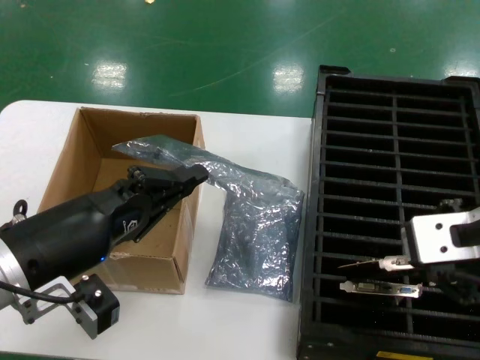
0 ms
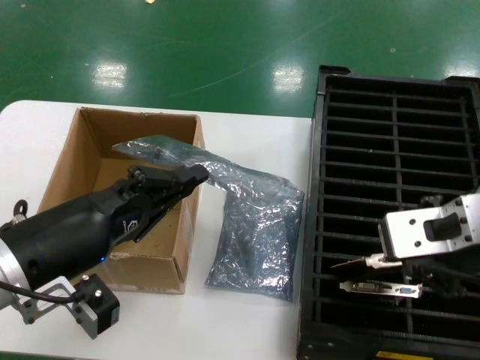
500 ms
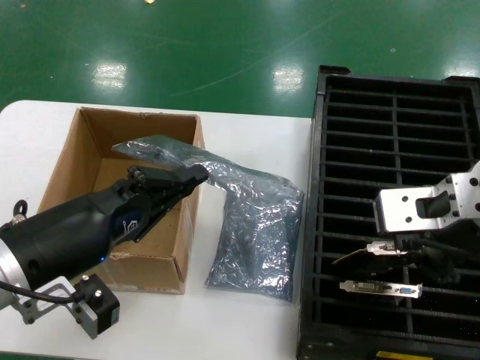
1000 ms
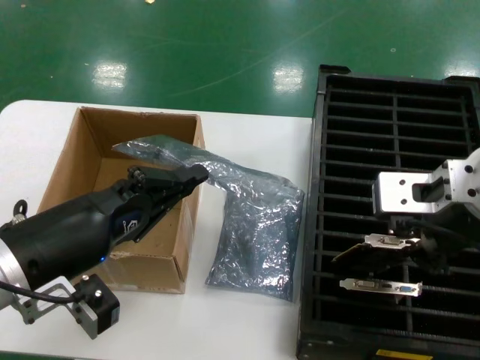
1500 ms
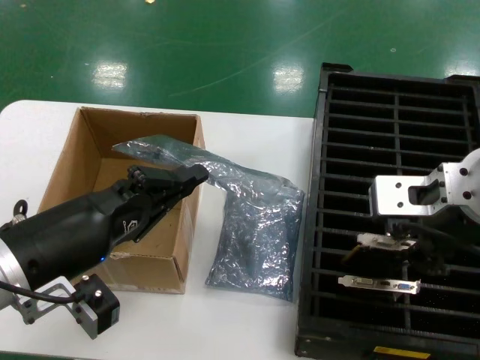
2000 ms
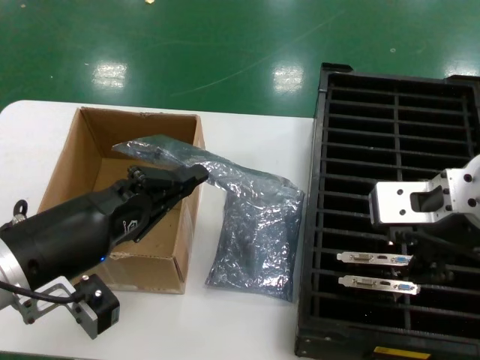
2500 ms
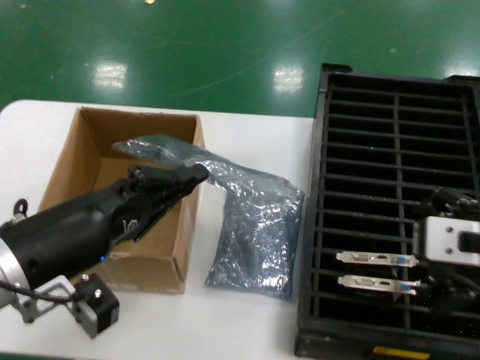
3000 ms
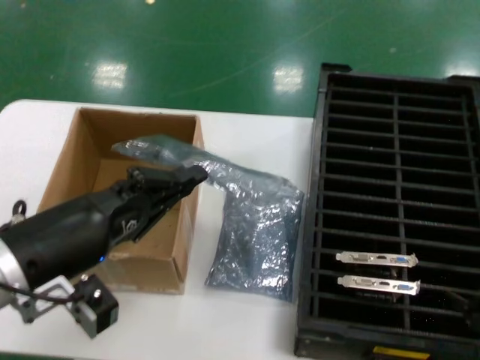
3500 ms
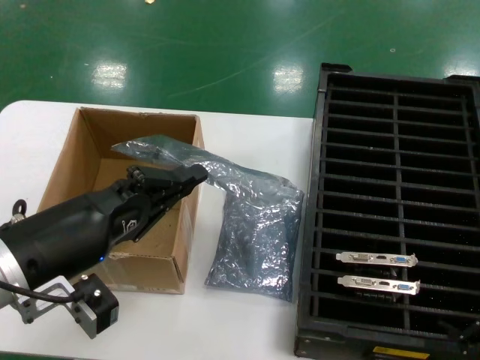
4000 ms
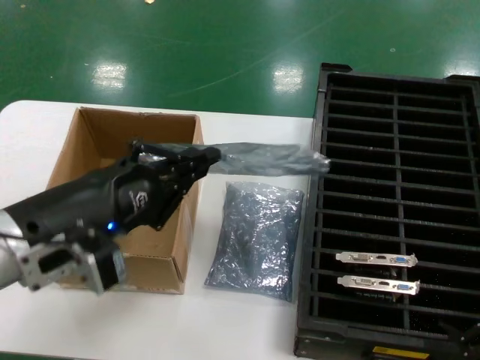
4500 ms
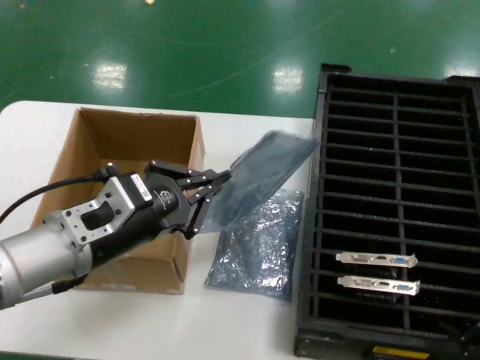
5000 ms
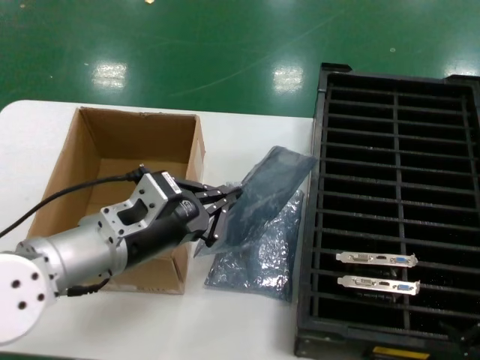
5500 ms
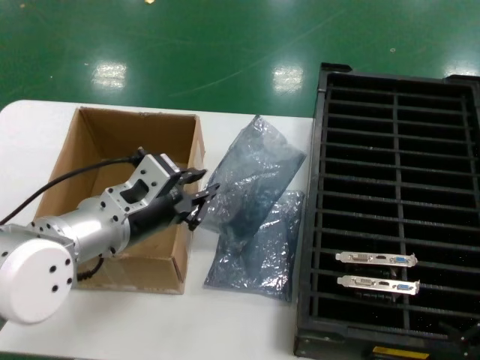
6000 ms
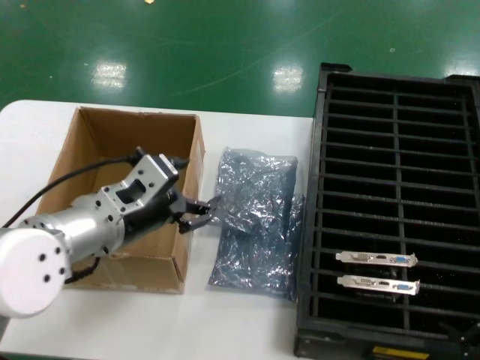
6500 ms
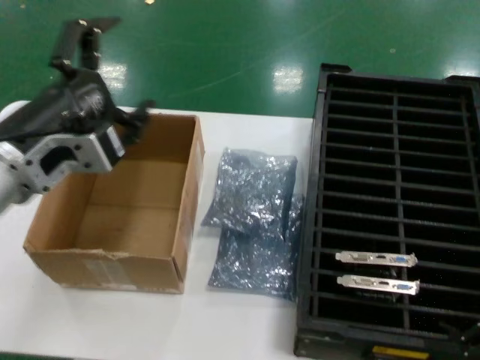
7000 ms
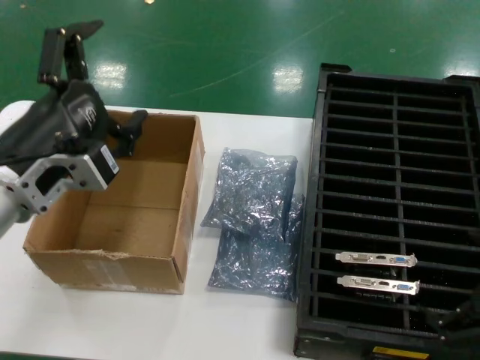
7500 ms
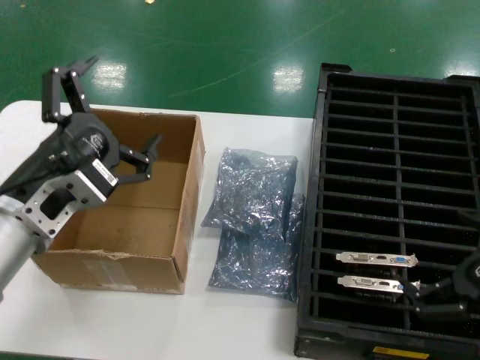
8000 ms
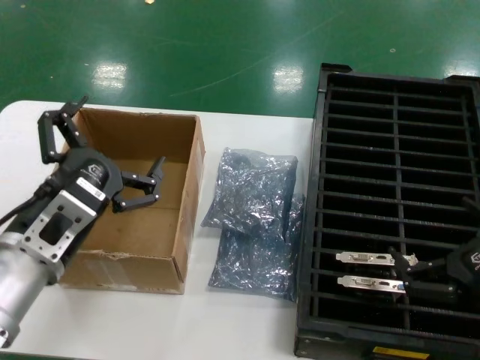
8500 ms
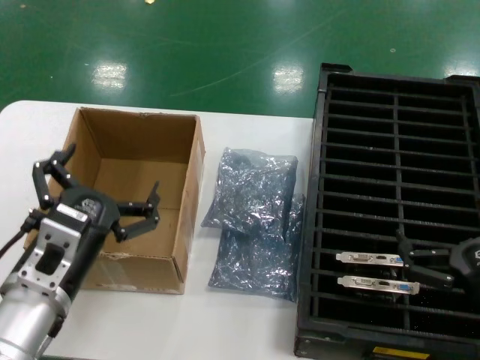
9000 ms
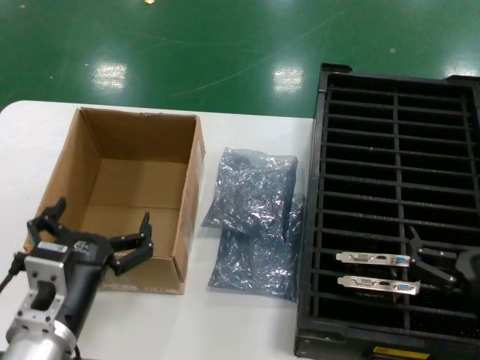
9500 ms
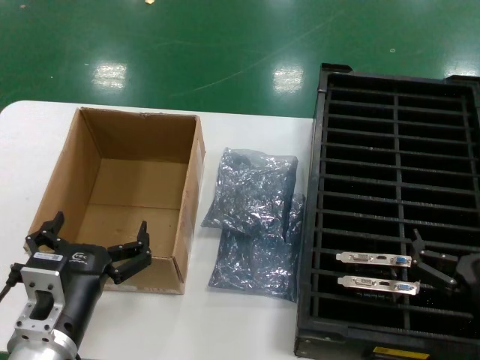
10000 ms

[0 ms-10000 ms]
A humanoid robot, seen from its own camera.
Task of the whole recording: take out graphics card from box remove packaging put into black container.
Step, 0 ms to 2500 ms: Place the hard disk in the hard disk enclosure.
Step, 3000 ms to 6500 ms: Place the down the bag.
0 ms to 2000 ms: The right hand is displaced forward by about 5 cm.
2000 ms to 4000 ms: The right hand moves to the right, downward and backward, some 25 cm.
4000 ms to 6000 ms: The left hand heads forward and to the right, covering about 10 cm.
6000 ms to 8000 ms: The left hand travels backward by about 5 cm, and goes upward and returns, some 10 cm each way.
8000 ms to 10000 ms: The right hand moves downward and to the left, some 10 cm; the left hand goes roughly 15 cm downward.

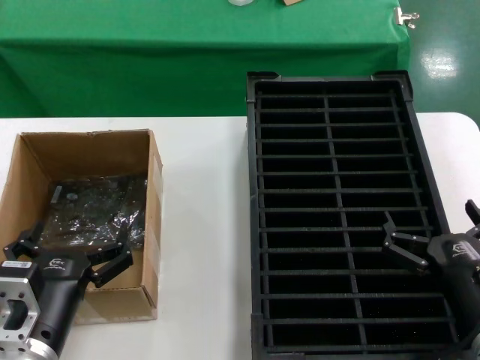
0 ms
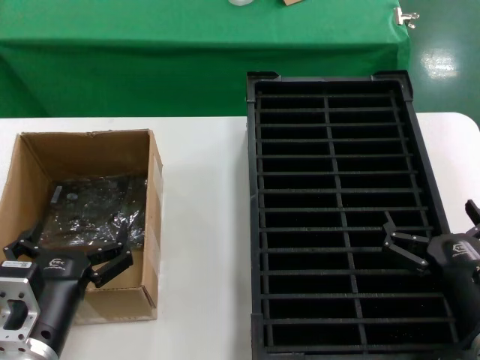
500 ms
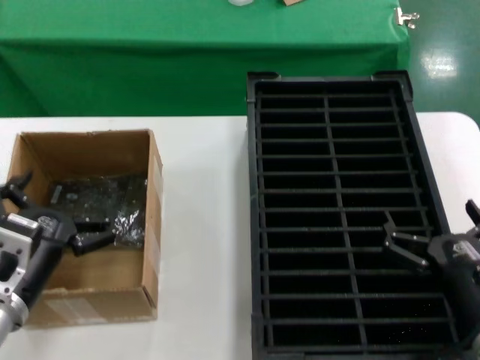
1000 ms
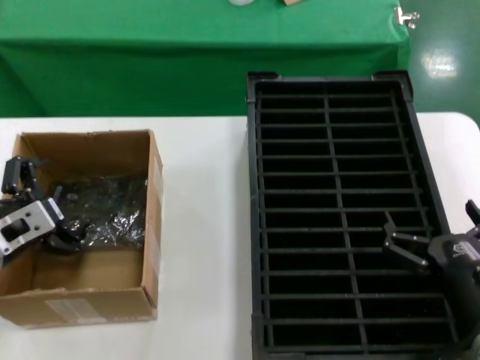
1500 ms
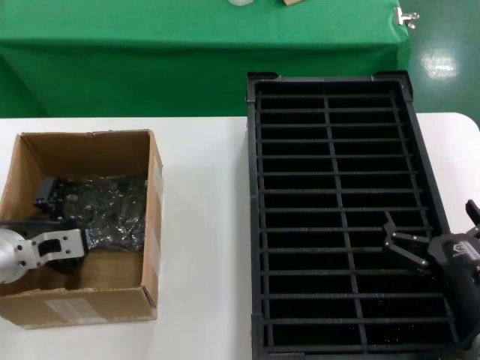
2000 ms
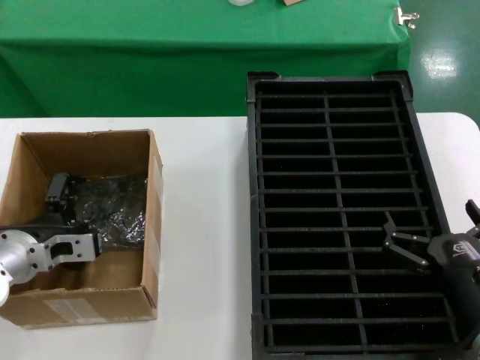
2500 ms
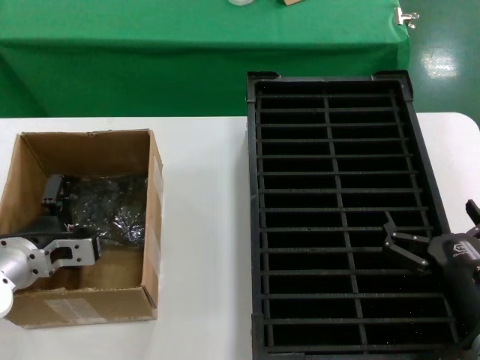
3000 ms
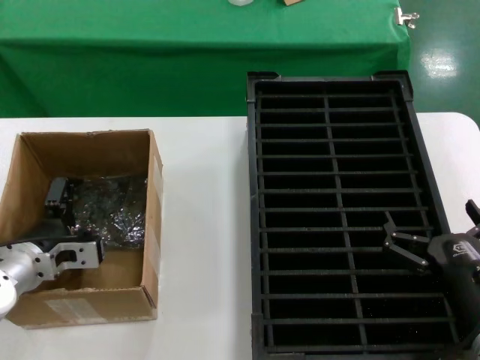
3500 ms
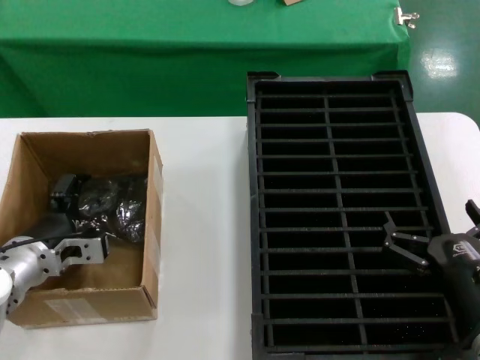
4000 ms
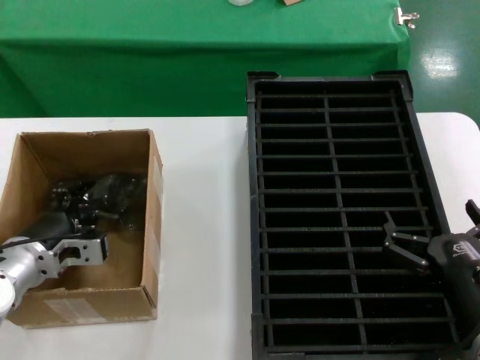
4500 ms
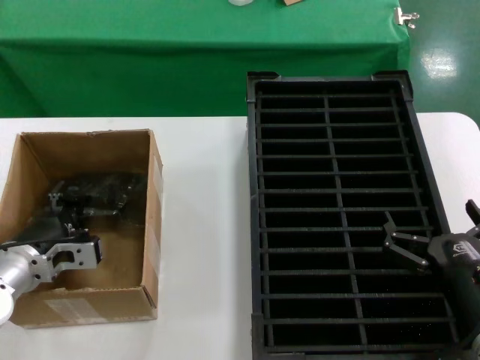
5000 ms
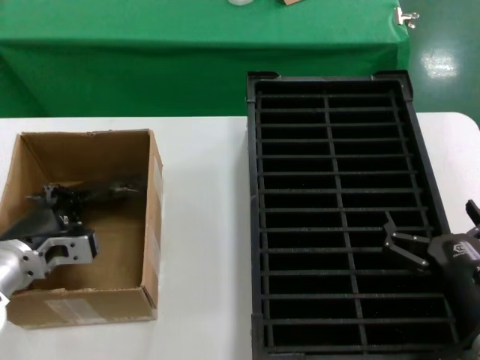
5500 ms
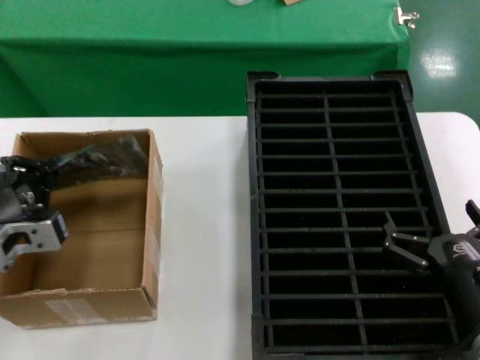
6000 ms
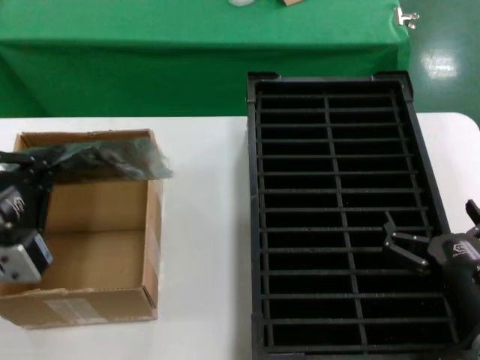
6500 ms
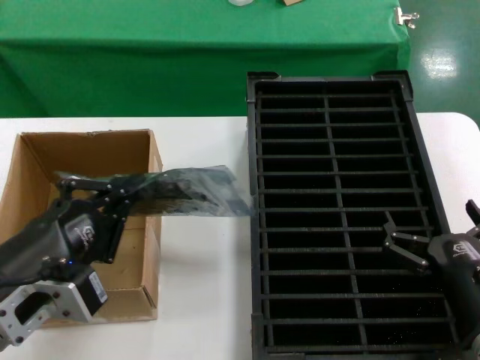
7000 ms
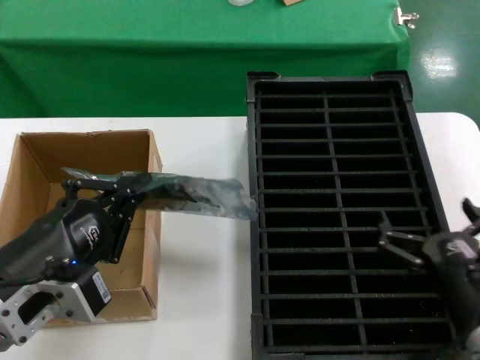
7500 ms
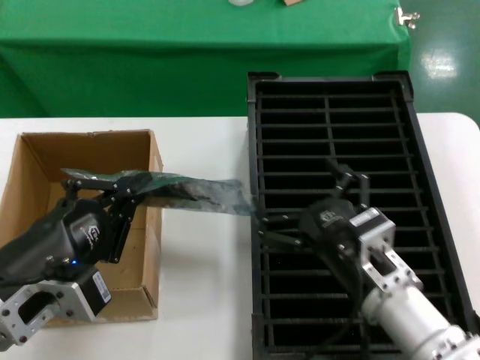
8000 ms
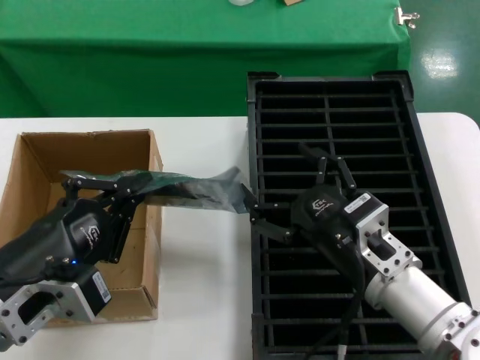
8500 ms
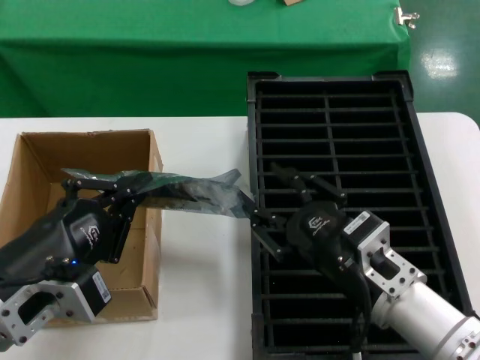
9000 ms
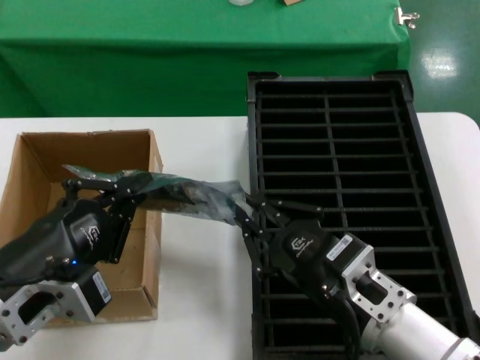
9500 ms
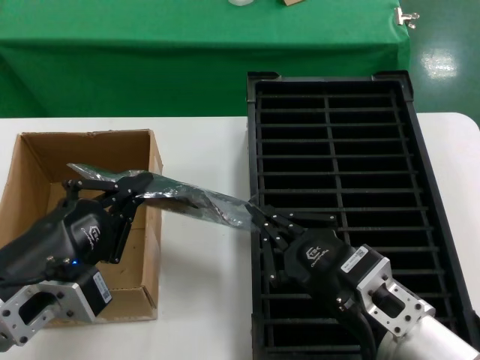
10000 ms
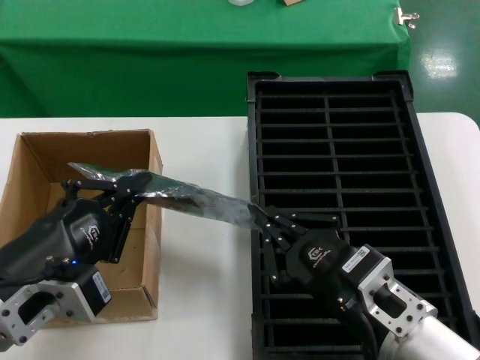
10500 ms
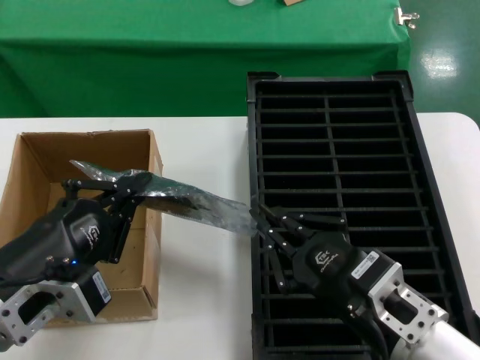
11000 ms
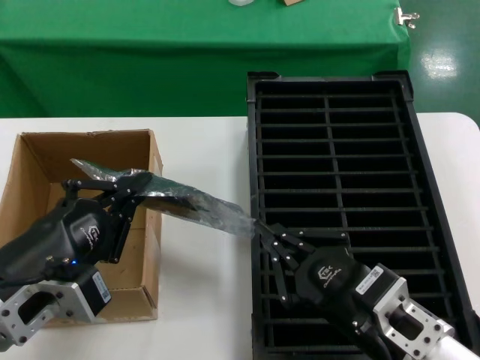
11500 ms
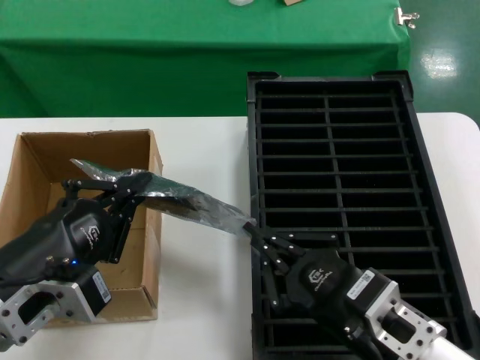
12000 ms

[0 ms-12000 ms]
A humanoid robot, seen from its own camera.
Task of the whole recording: take out graphics card from box remove packaging put into black container.
Step, 0 ms to 4500 ms: Grasp the bag.
Step, 5500 ms to 7000 ms: Lift the bag.
0 ms to 2000 ms: The left hand is displaced forward and to the left by about 20 cm.
2000 ms to 4000 ms: The hands stay close to where they were, moving slightly.
4000 ms to 6000 ms: The left hand travels backward and upward by approximately 10 cm.
6000 ms to 8000 ms: The left hand travels backward and to the right by some 15 cm; the right hand shifts about 10 cm to the left.
8000 ms to 10000 ms: The hands make only small movements.
10000 ms to 12000 ms: There are only small adjustments of the hands.

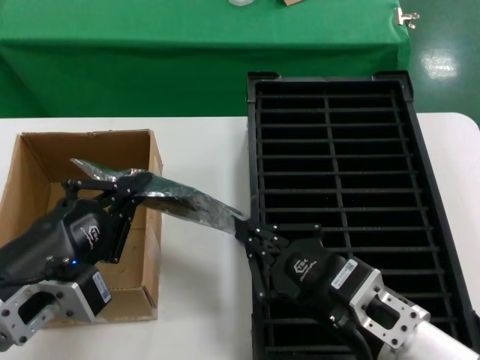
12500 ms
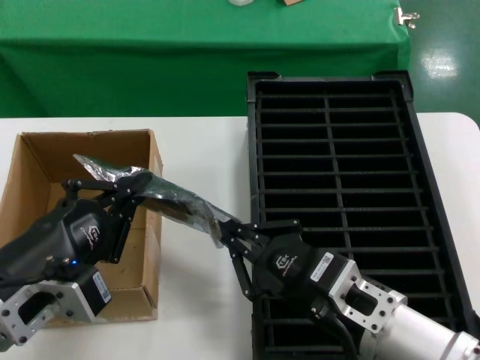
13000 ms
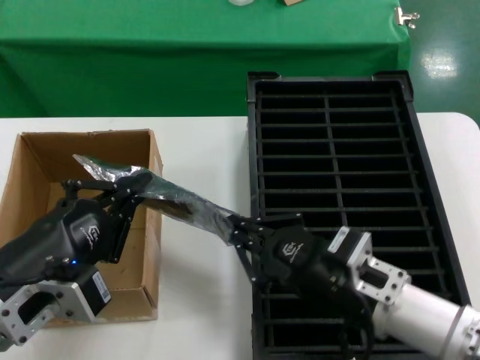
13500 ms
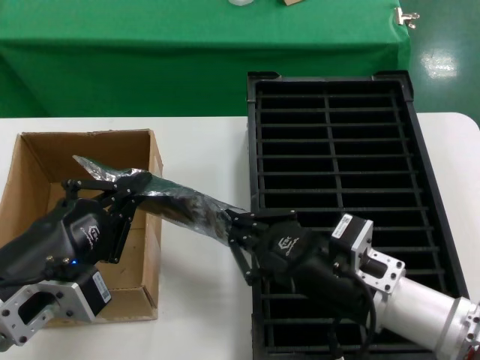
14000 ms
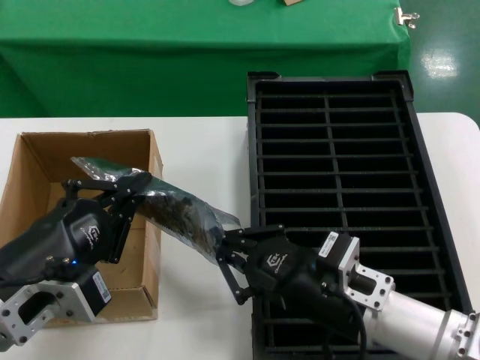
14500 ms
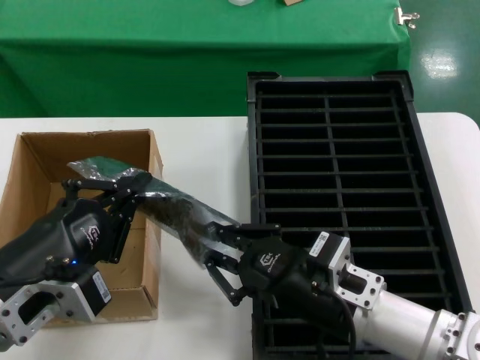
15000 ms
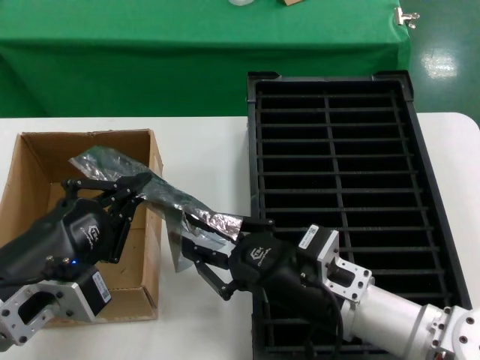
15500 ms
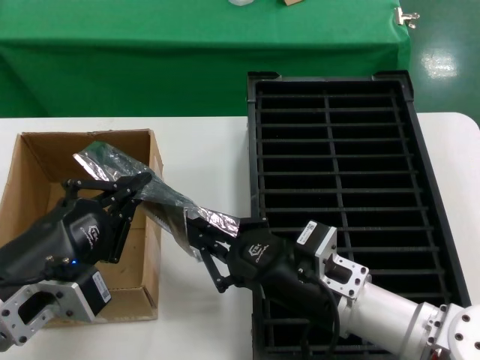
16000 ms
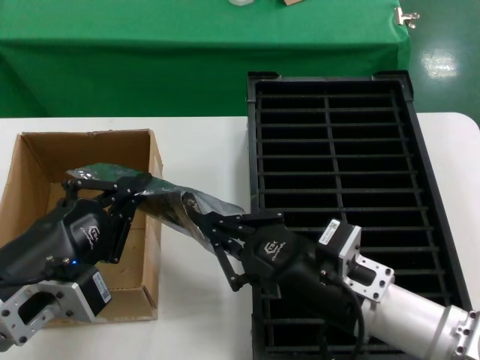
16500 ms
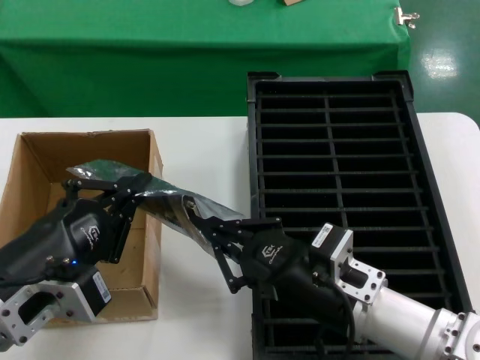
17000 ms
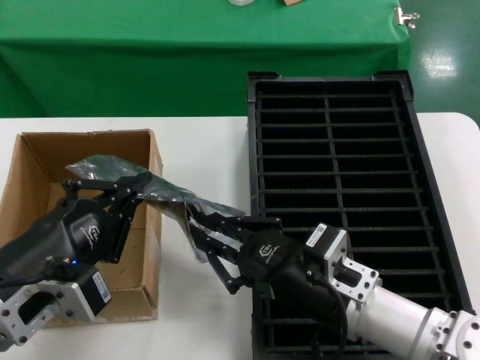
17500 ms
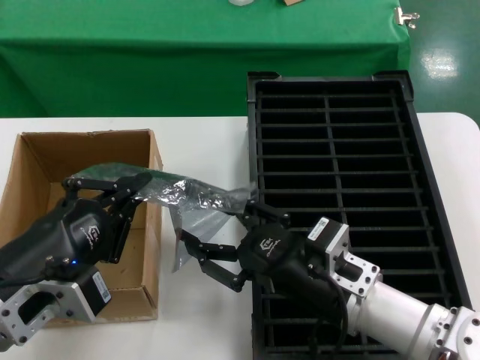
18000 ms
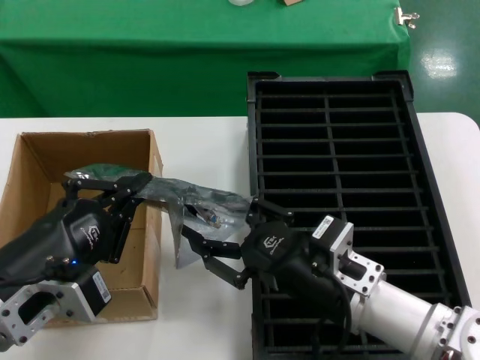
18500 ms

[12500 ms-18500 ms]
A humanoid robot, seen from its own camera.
Task of the whole recording: take out graphics card from box remove packaging put into black container.
12500 ms to 14500 ms: The right hand shifts approximately 5 cm forward.
14500 ms to 18500 ms: There are only small adjustments of the hands.
